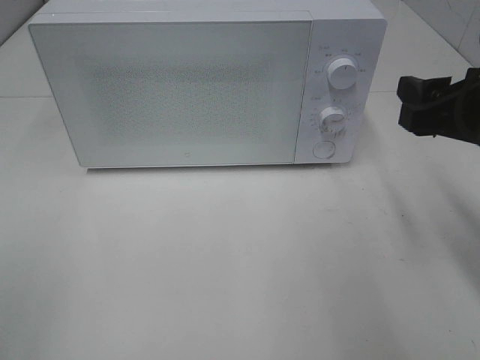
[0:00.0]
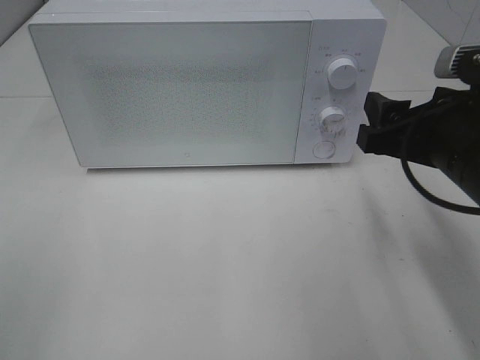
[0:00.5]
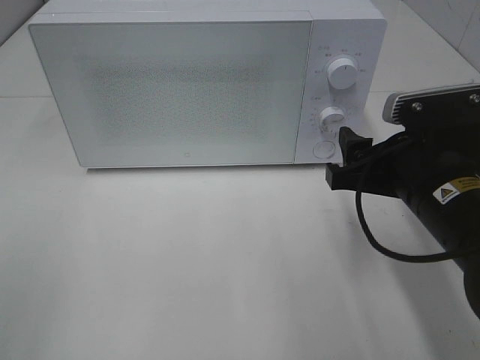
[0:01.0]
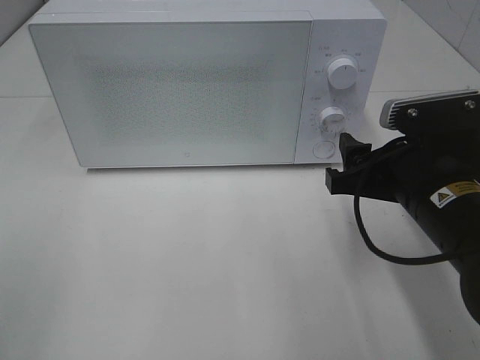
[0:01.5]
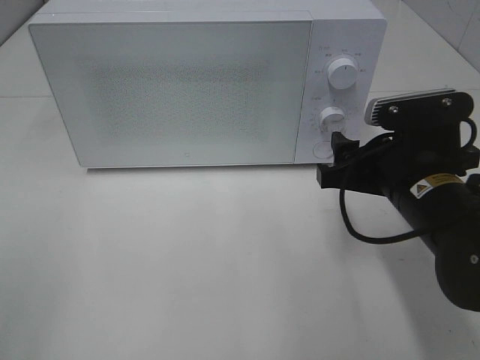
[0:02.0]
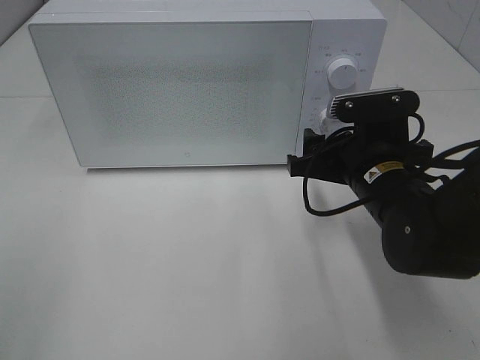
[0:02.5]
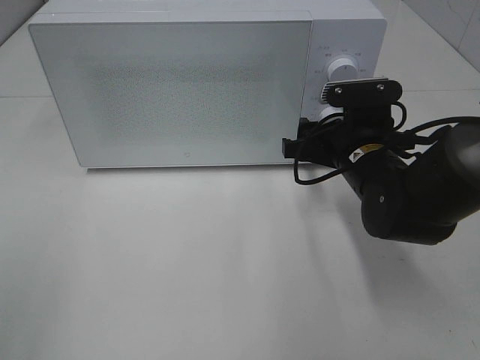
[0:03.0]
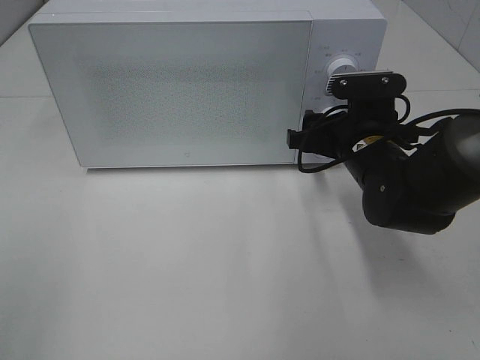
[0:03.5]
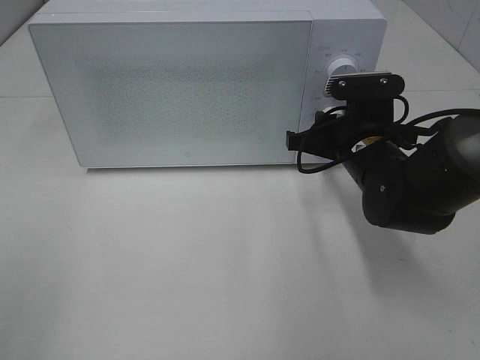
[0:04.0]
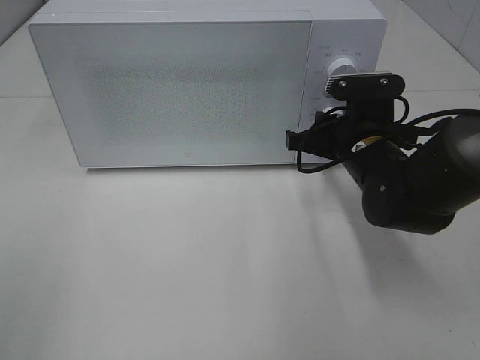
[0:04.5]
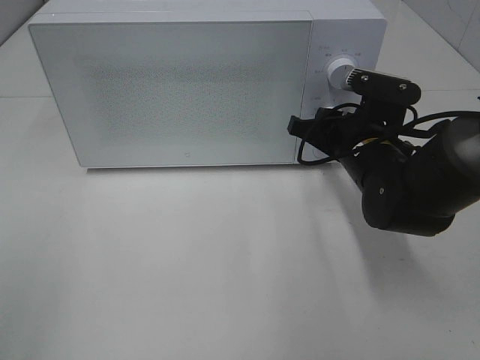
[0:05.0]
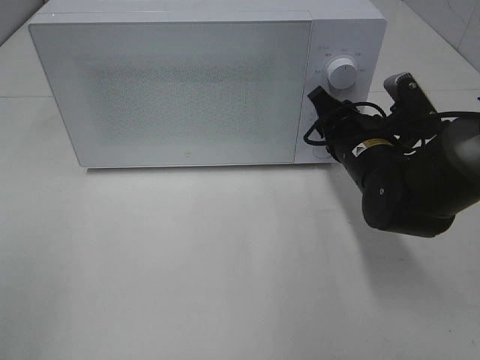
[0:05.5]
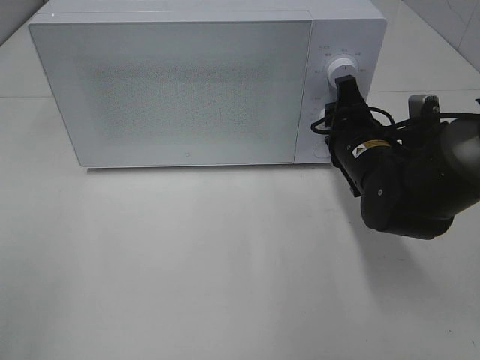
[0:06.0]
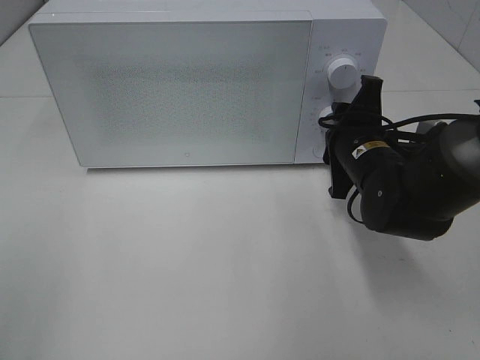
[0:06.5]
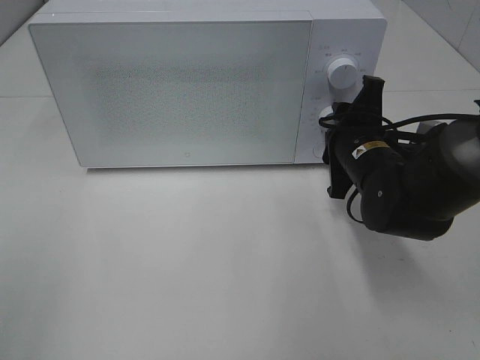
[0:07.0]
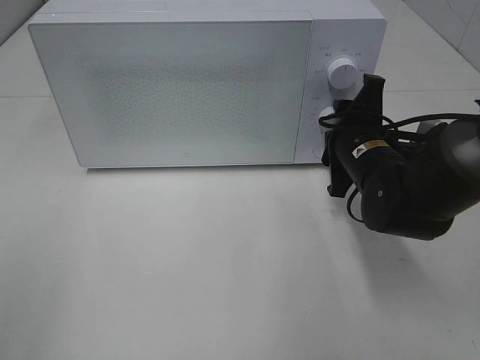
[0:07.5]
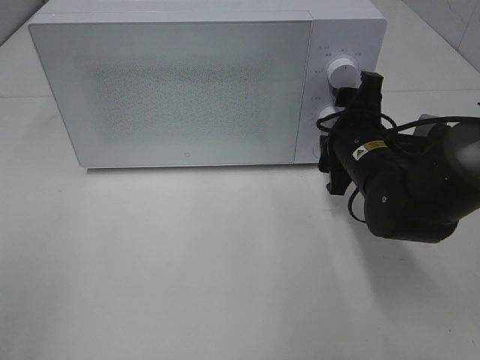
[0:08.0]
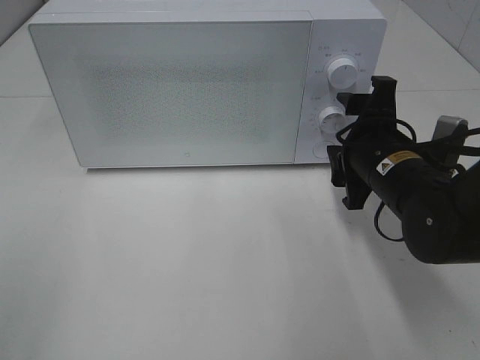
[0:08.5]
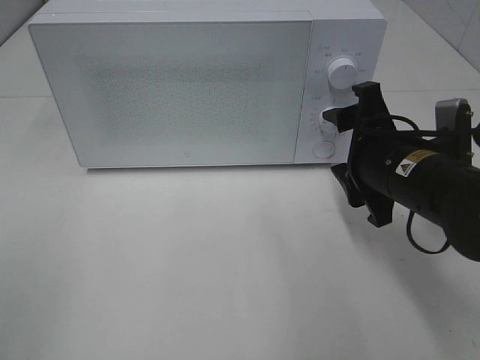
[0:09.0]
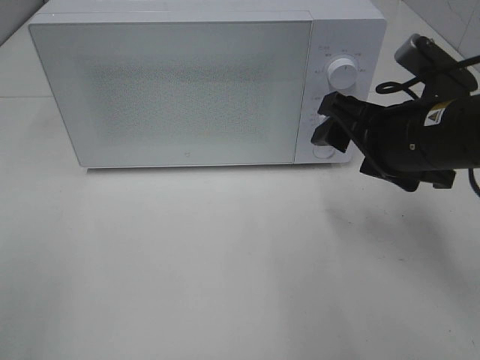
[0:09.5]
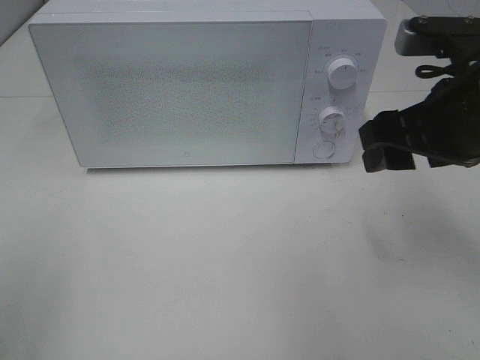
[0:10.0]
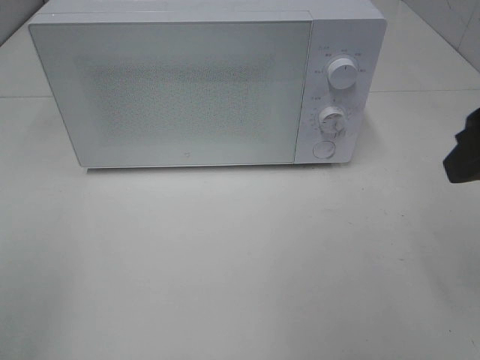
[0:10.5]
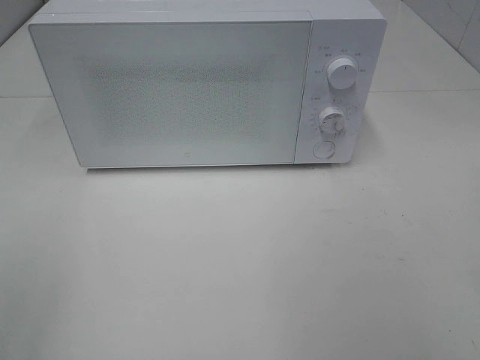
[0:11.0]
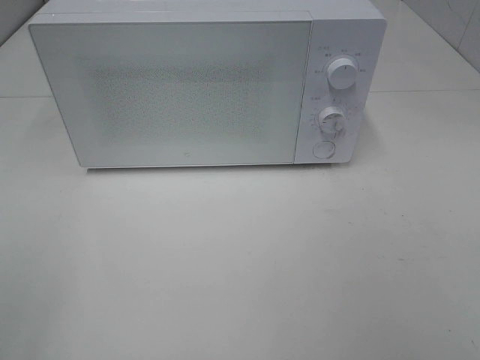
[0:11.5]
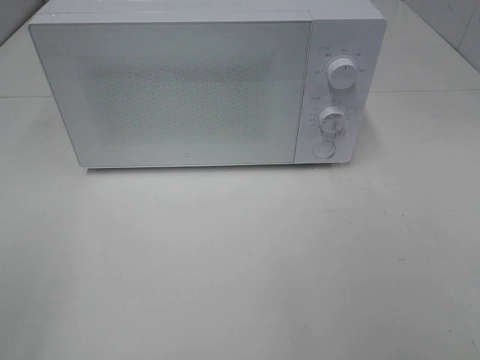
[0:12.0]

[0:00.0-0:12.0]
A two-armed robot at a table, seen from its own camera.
Task of the whole recording: Heat Sandwich.
Step, 0:00.0 to 0:08.5: Right hand: twist timer button.
0:00.0 to 0:02.0: The right gripper goes roughly 10 cm downward and to the left.
0:02.0 to 0:04.0: The right gripper goes some 10 cm forward, and closes.
0:08.0 to 0:10.0: The right gripper is displaced upward and backward by approximately 15 cm.
0:10.0 to 0:12.0: The right gripper goes some 25 cm backward and to the right.

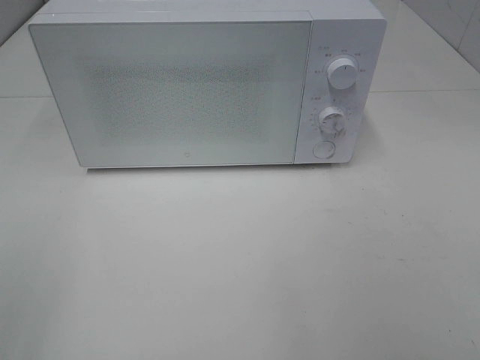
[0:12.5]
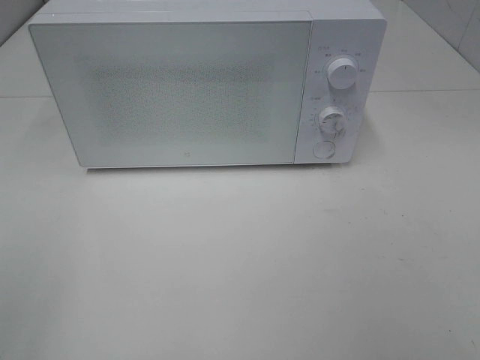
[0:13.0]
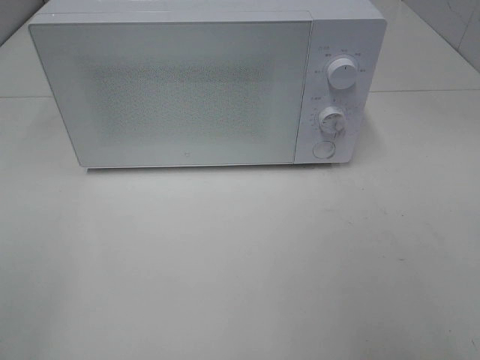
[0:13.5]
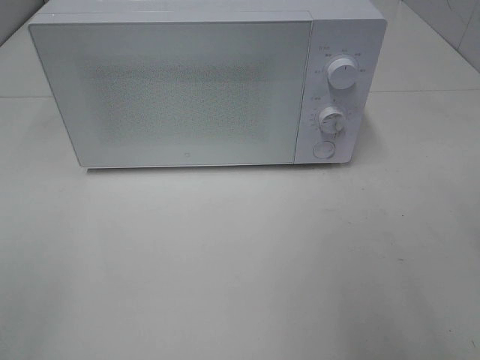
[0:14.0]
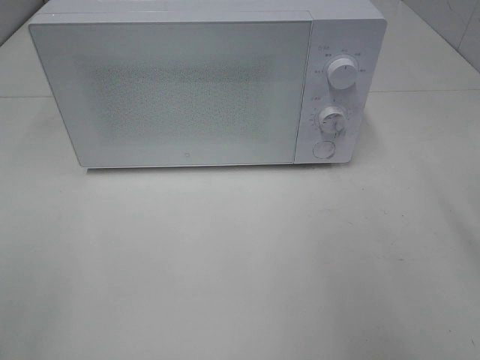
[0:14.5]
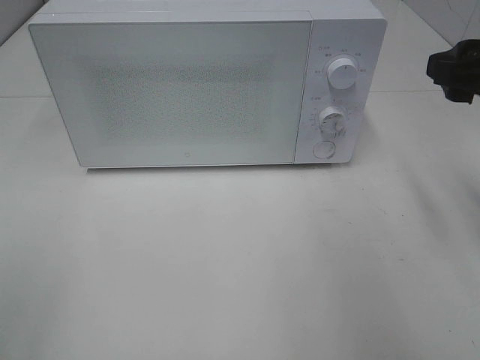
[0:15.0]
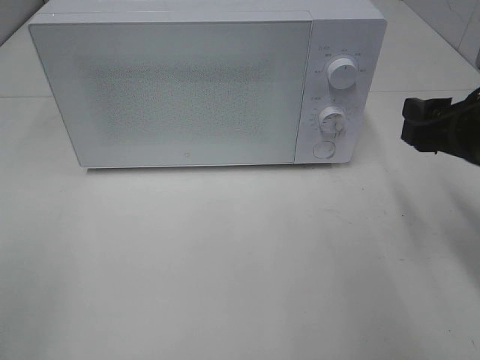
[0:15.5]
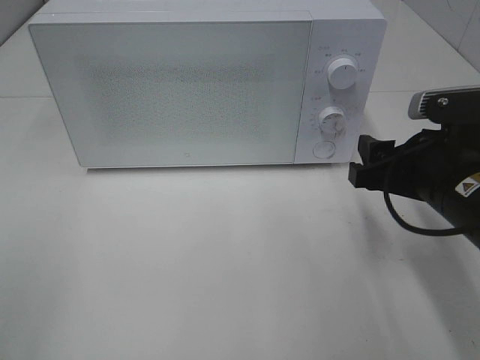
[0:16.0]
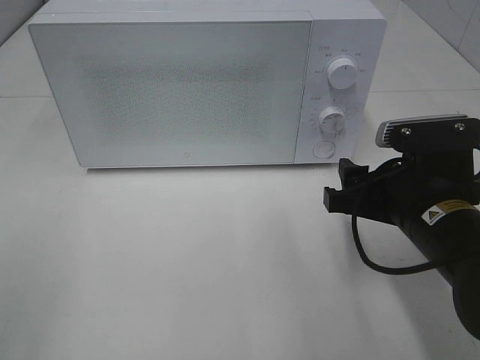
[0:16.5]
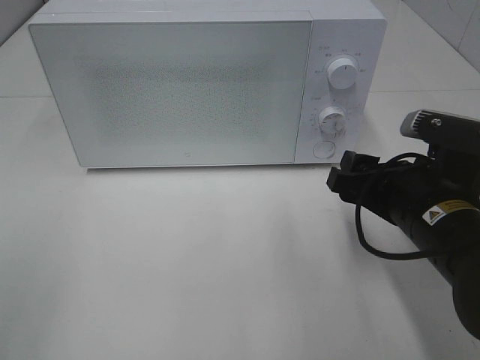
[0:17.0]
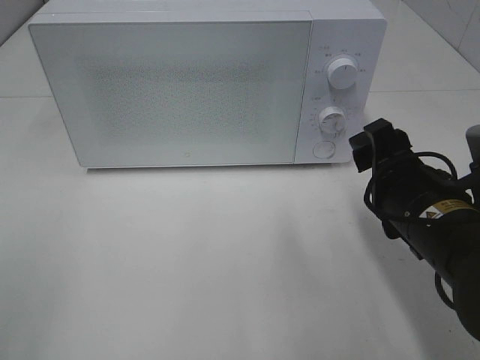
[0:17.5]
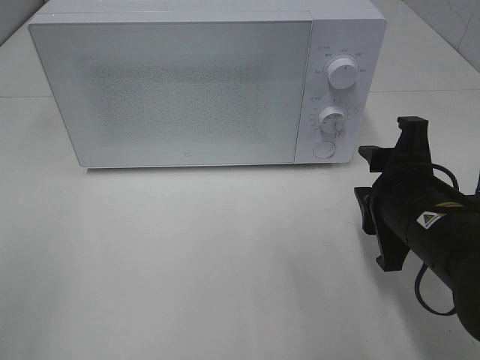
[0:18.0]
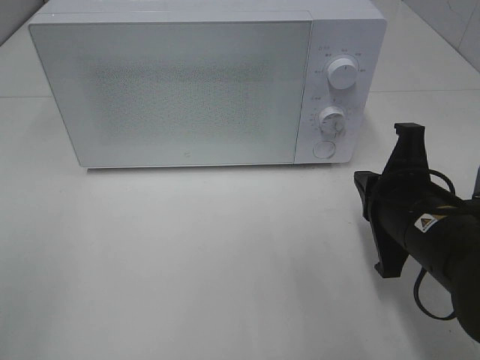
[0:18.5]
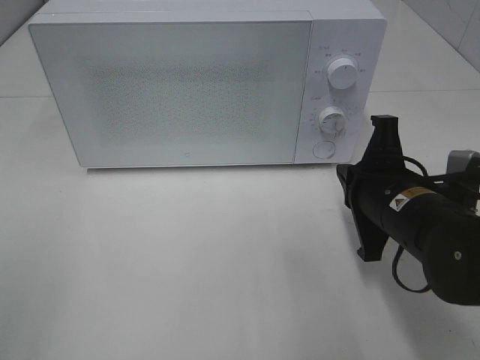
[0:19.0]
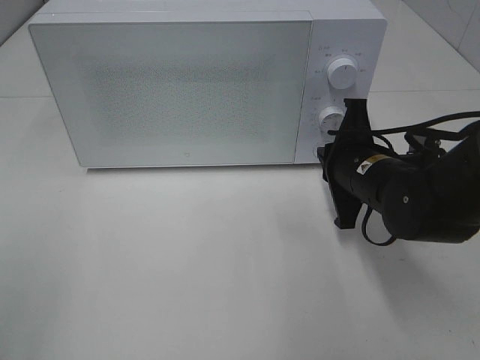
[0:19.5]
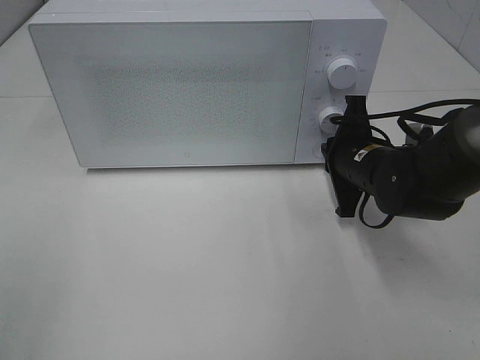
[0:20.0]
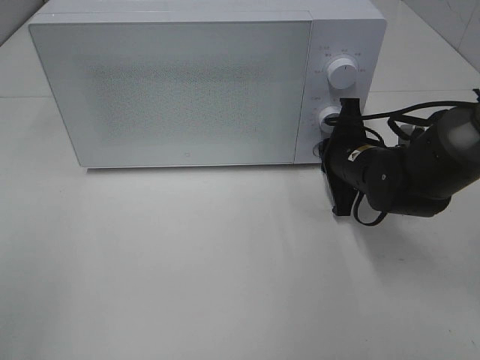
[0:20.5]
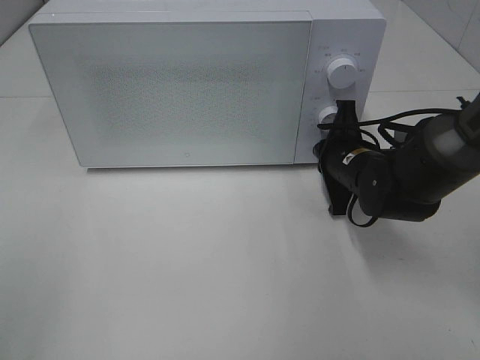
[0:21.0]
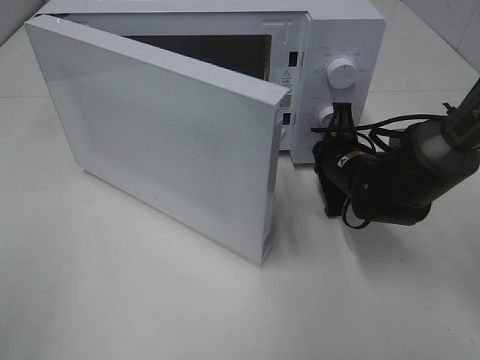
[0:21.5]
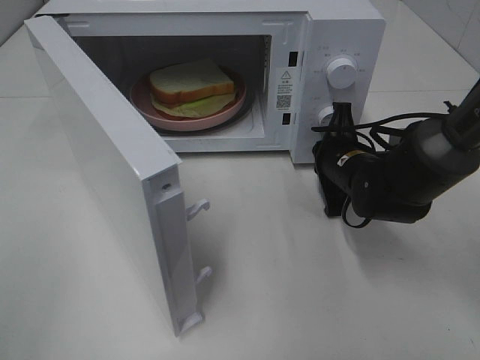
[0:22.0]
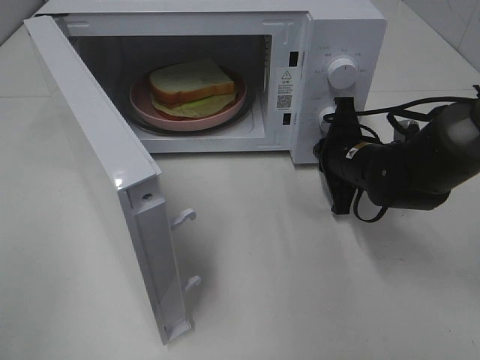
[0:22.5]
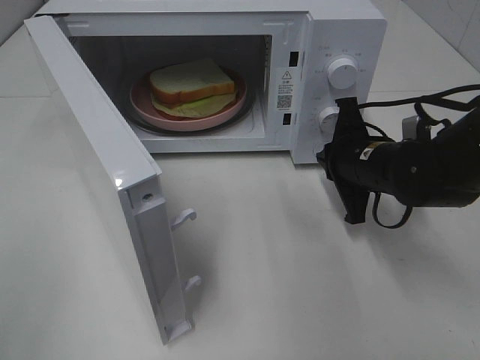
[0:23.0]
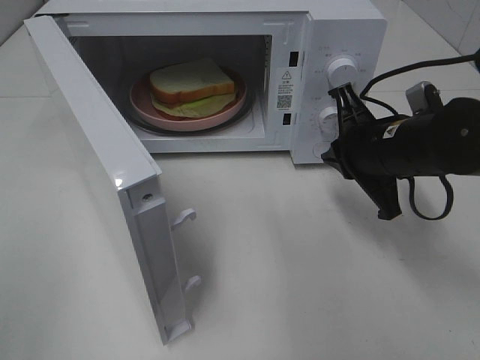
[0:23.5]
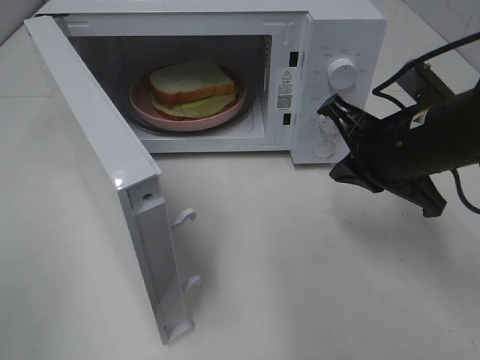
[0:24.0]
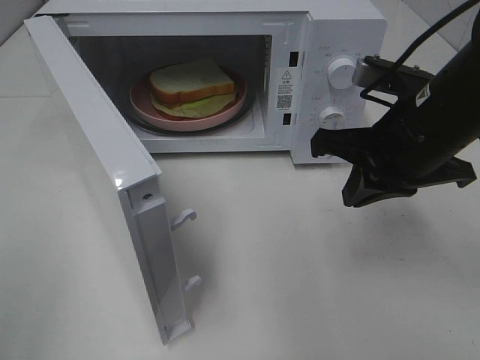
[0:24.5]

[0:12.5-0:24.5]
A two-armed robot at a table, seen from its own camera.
Task of the whole recording: Heat Sandwich.
Step, 0:12.5 to 0:23.0: Right hand: press the switch.
0:14.5 to 0:16.5: The right gripper heads downward and to the left, covering roughly 20 cm.
0:16.5 to 0:18.5: The right gripper closes.
0:18.5 to 0:20.5: The right gripper heads forward, covering some 15 cm.
0:22.5 to 0:24.5: The right gripper is displaced upward and backward by about 15 cm.

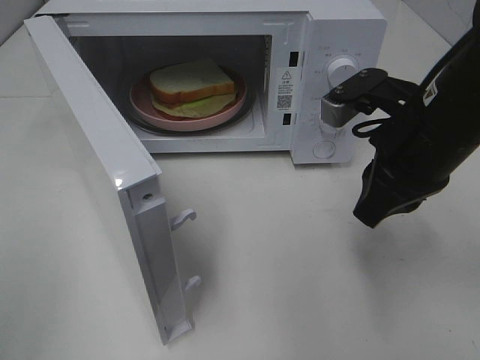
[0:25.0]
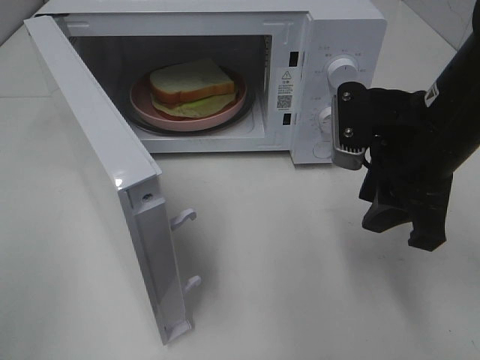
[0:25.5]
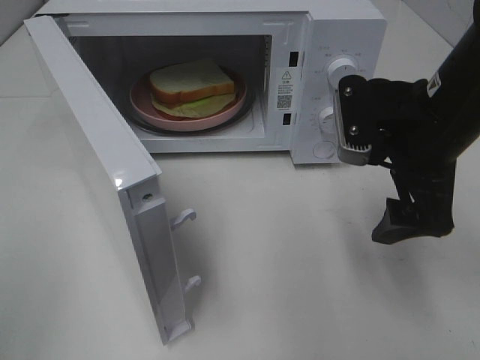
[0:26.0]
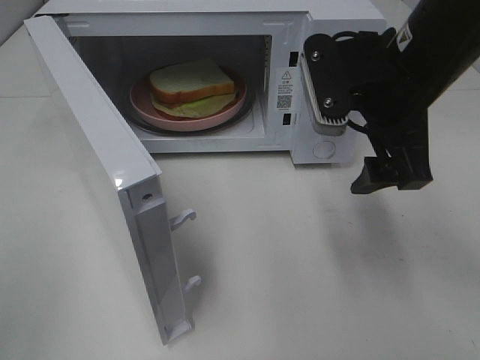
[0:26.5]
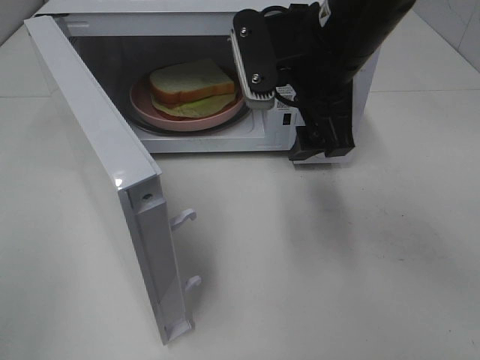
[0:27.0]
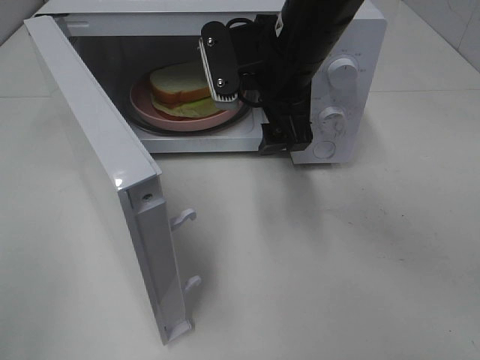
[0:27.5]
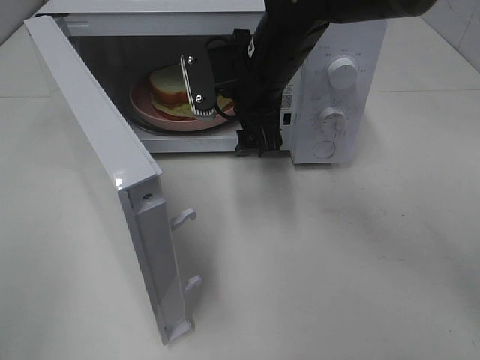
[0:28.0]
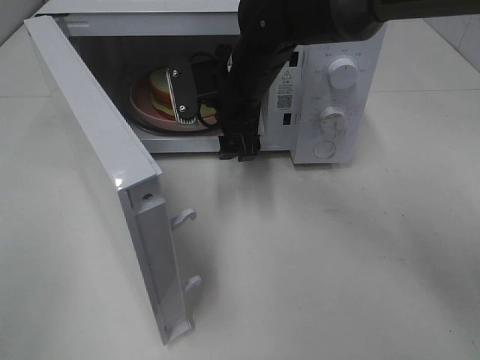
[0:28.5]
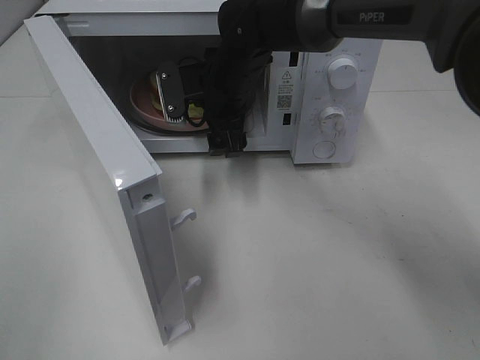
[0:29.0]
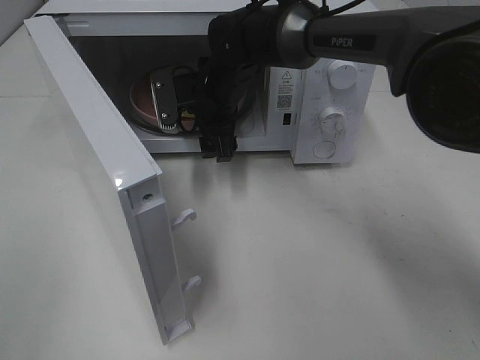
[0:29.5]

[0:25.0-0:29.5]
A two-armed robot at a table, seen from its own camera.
Task of the whole recording: Heat Sandwich.
0:25.0 to 0:27.0: The right gripper is displaced to the left and forward by about 10 cm, and opens up.
0:27.0 to 0:29.5: The right gripper shifts roughly 20 cm forward, downward and to the left.
